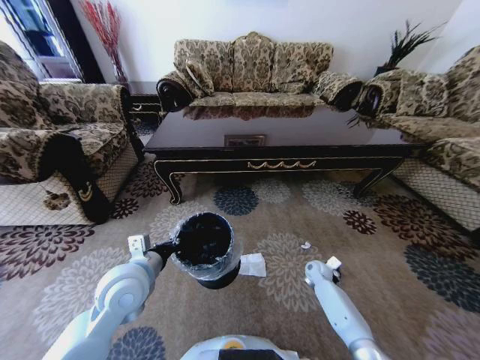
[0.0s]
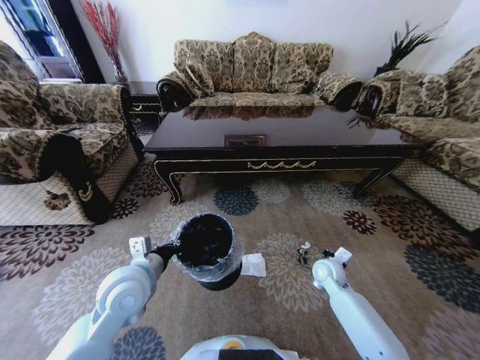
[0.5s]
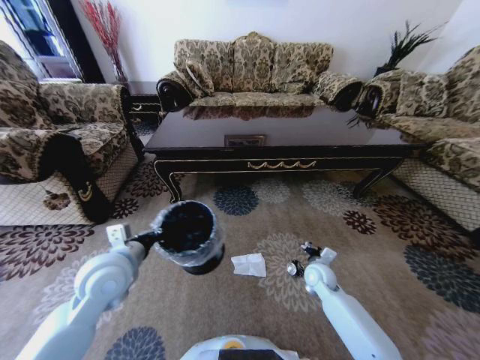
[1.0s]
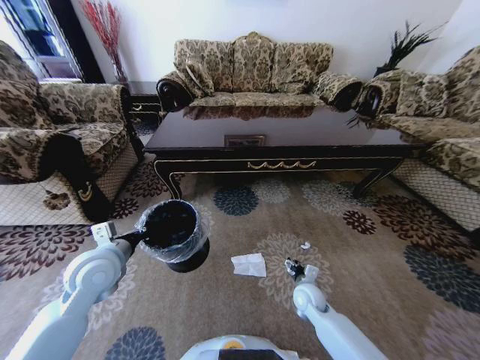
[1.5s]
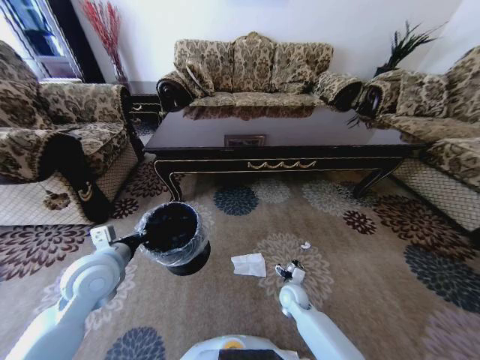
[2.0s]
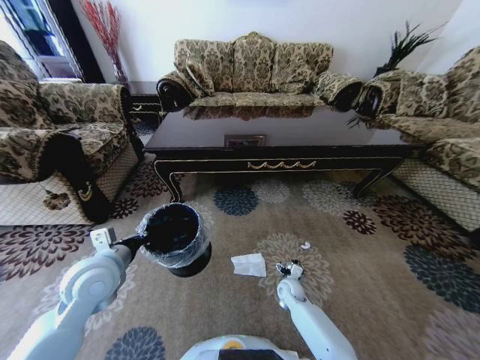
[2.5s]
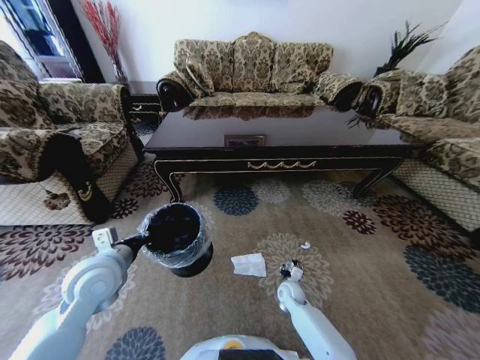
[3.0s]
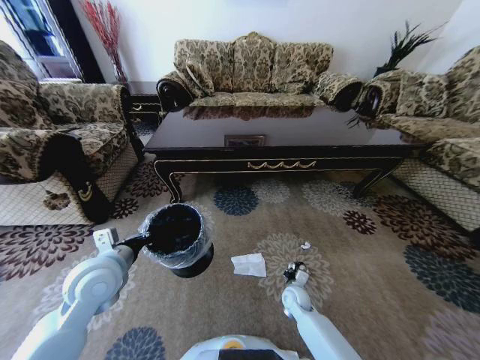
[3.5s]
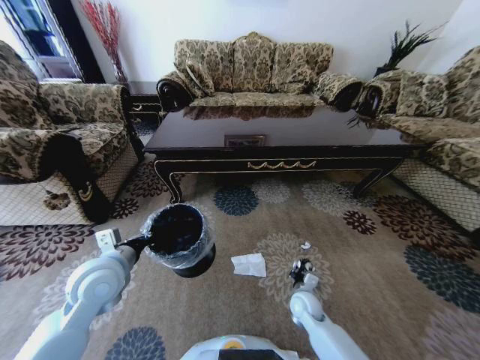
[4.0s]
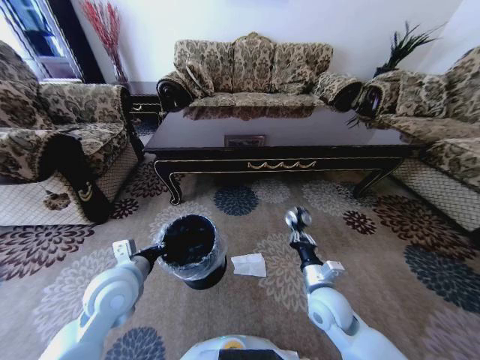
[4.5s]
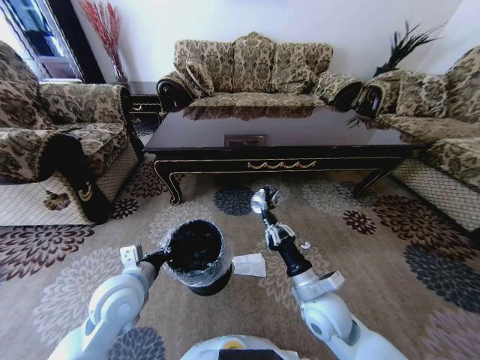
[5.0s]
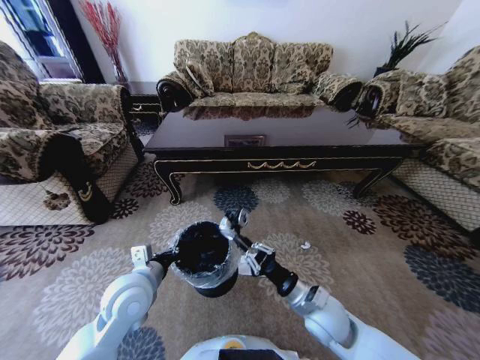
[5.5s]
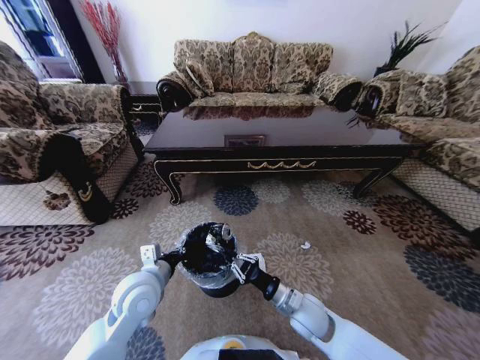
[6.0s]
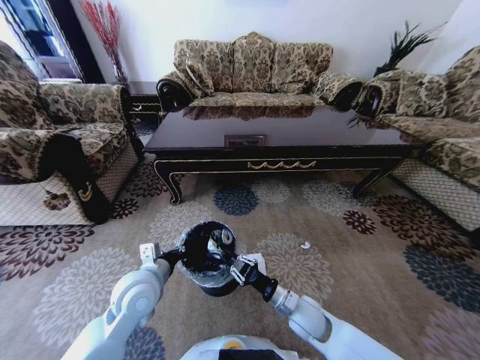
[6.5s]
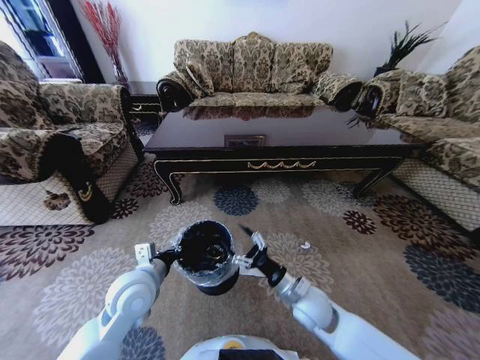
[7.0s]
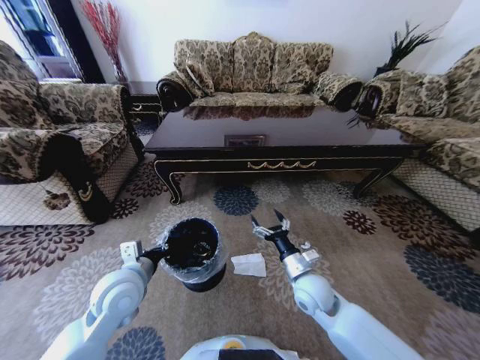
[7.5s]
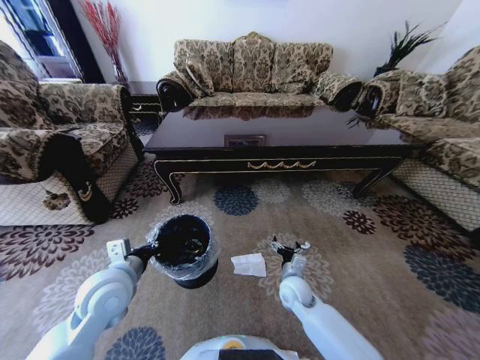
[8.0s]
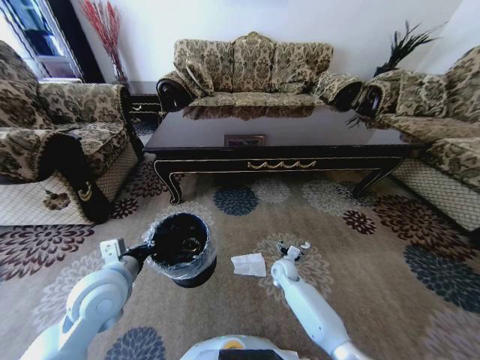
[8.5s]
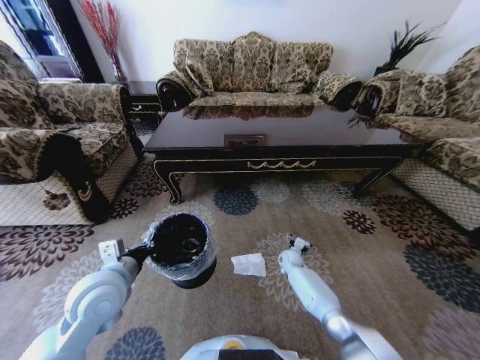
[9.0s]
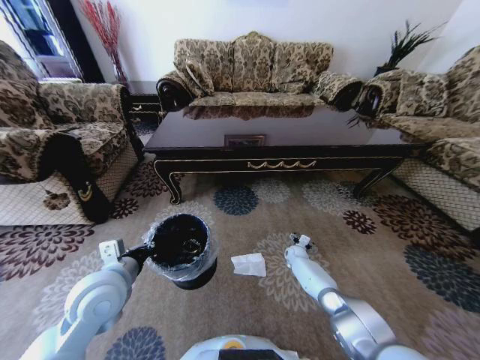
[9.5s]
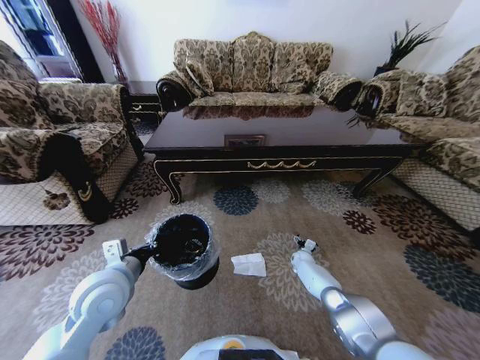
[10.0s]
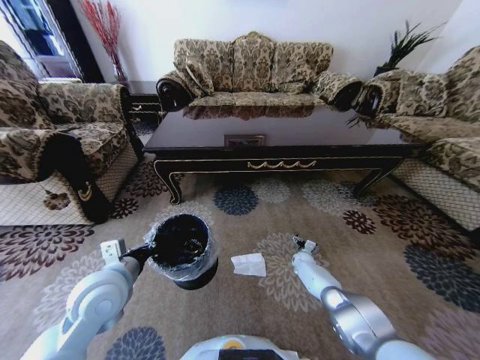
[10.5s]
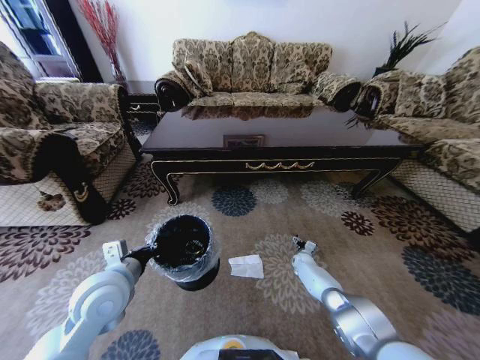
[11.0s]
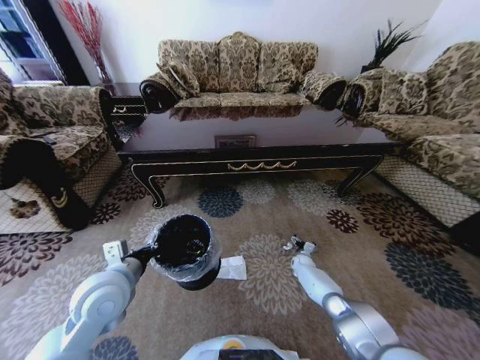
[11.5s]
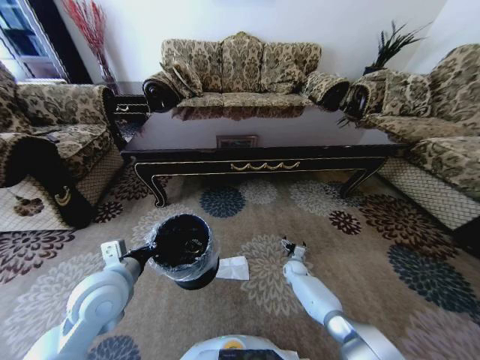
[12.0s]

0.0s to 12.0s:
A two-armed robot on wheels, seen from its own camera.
Task of the whole recording: Move to the front of the table and pick up the trash from the floor, then place it into the trash bin.
0.0s to 2.0s: The left gripper moves to the left, approximately 5 cm, while the right gripper goes roughly 15 cm to the left and backward, and opens its fingers.
2.0s to 4.0s: The right gripper closes its fingers.
4.0s to 6.0s: The right gripper goes some 15 cm upward, backward and to the left; the left gripper heads to the right, covering roughly 5 cm.
6.0s to 8.0s: The right gripper travels forward and downward by some 10 cm, and opens up. Meanwhile the left gripper shifts approximately 5 cm to the left.
8.0s to 10.0s: The right gripper goes approximately 25 cm forward, downward and to the right.
10.0s to 12.0s: The right gripper goes some 5 cm to the left.

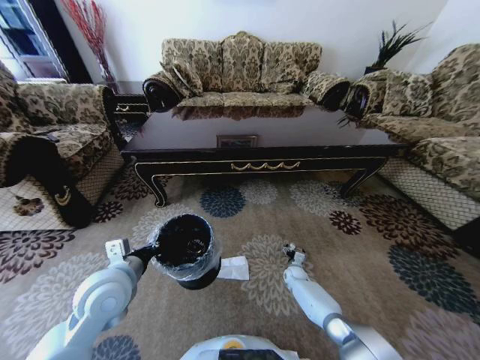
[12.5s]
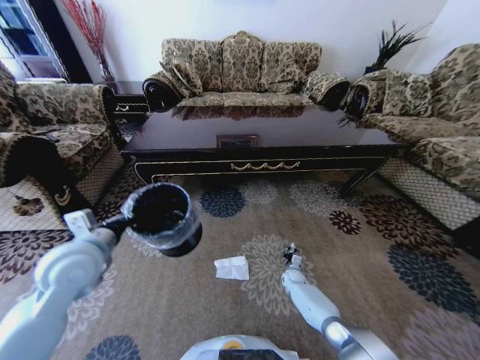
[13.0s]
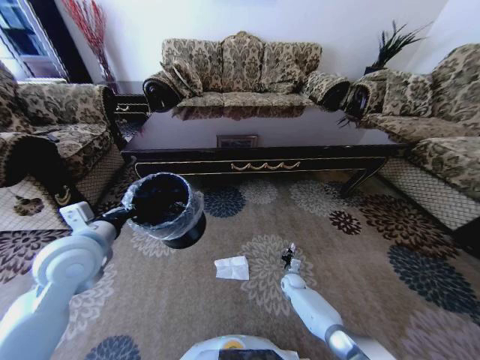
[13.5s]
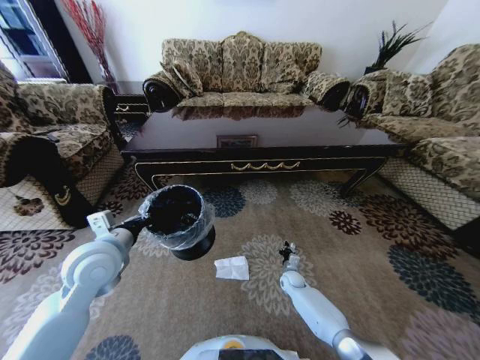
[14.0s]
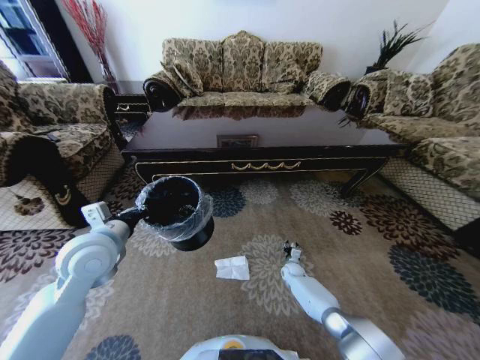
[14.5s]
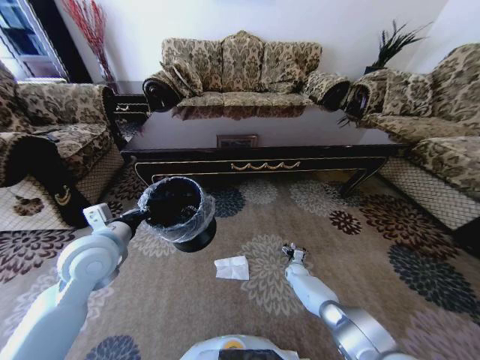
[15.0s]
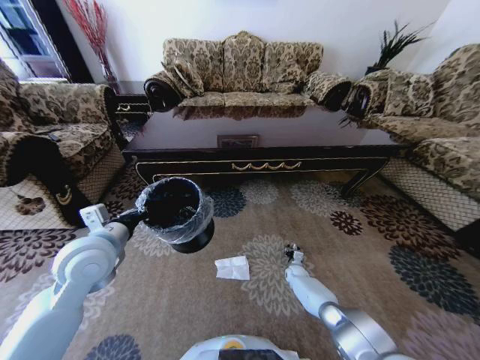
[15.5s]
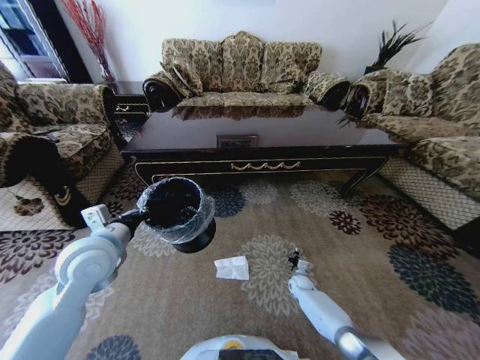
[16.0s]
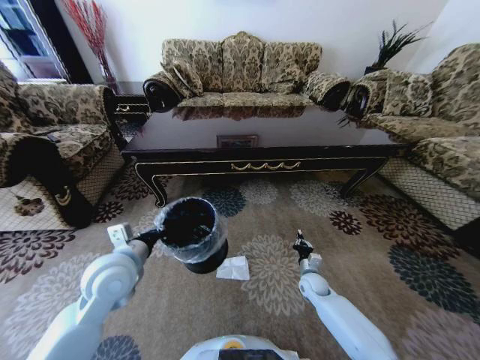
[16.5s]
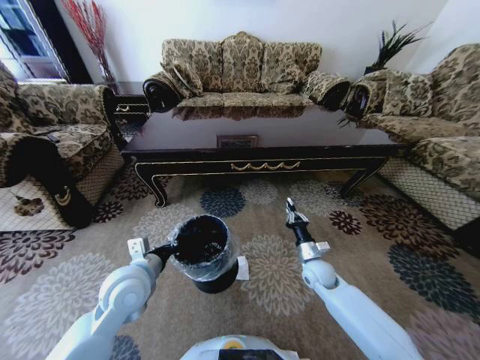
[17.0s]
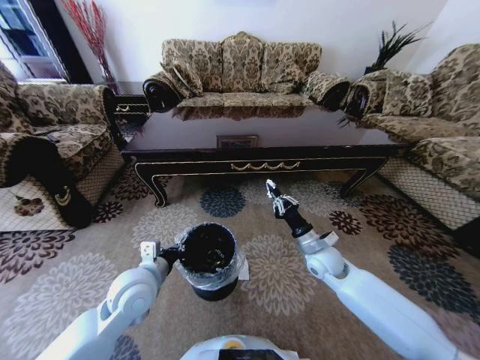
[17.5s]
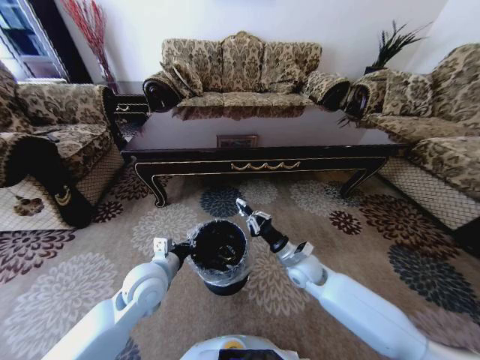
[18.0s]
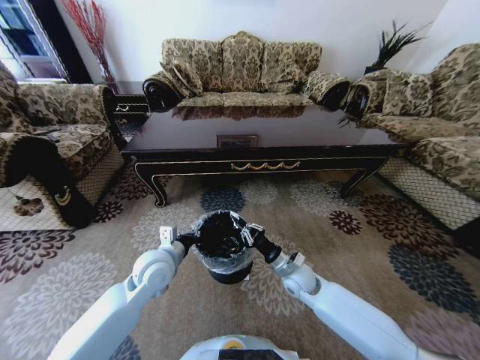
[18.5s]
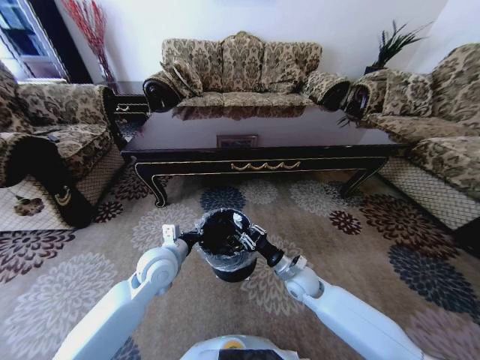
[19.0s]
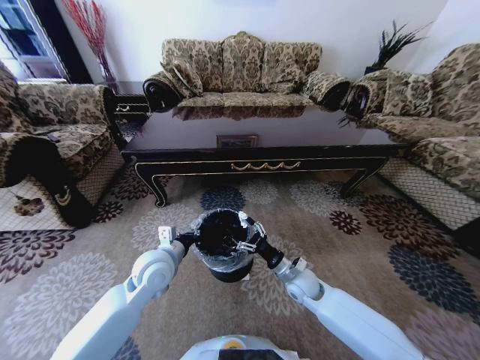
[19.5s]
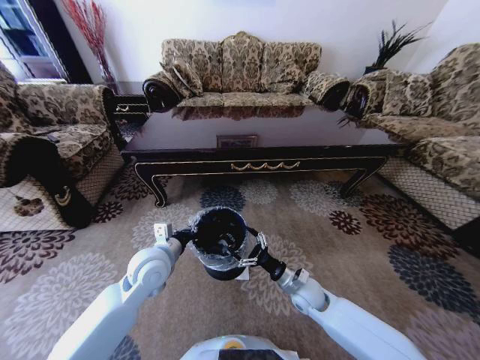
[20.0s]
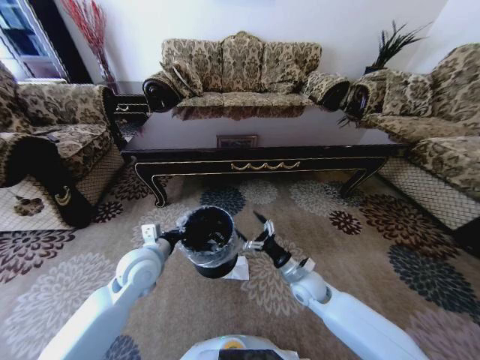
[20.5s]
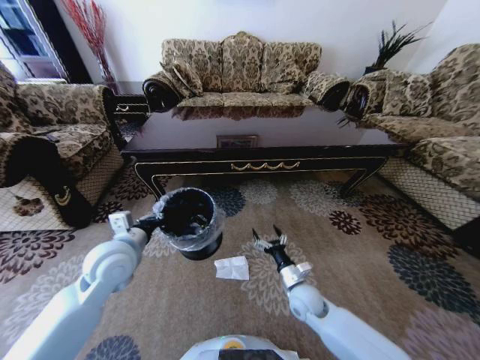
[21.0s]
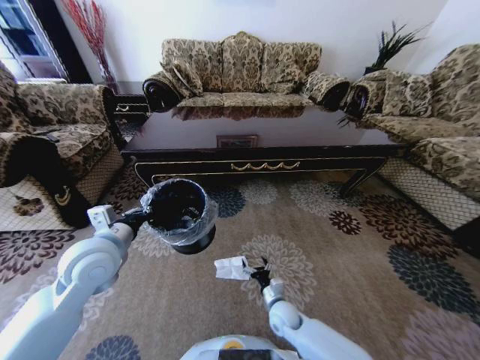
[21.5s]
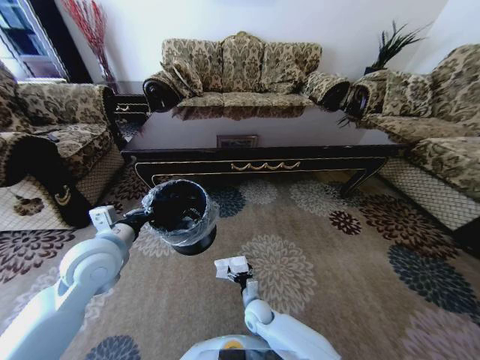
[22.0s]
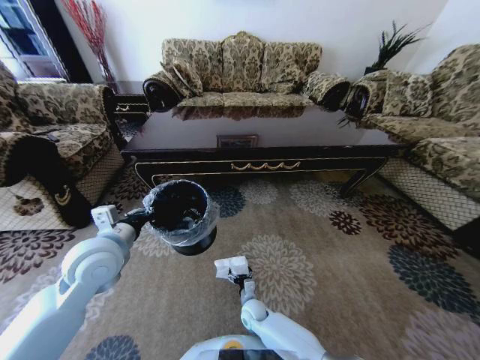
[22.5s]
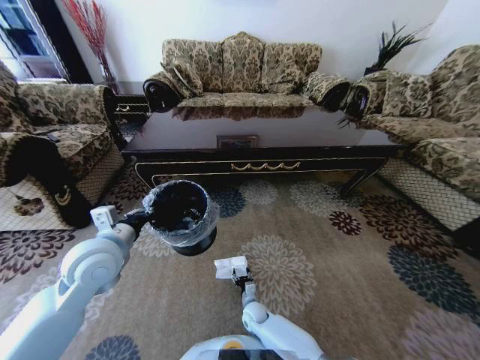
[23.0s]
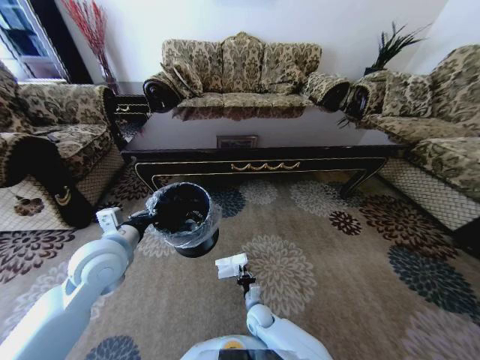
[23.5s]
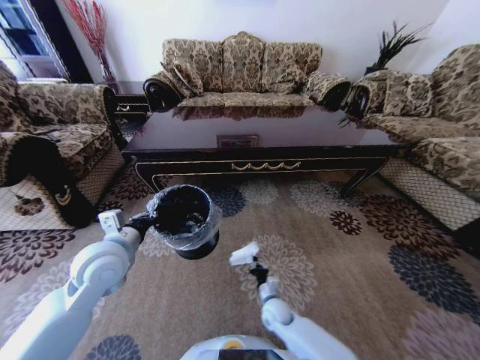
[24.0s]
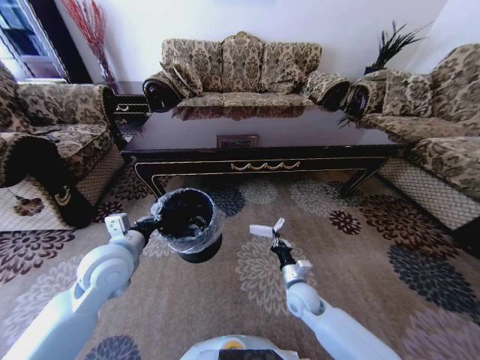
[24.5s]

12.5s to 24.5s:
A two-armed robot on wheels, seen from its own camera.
Task of the whole recording: Move to the front of the table and pick up the trash from the floor, then place it into the trash bin.
12.5s to 14.5s: The left gripper travels upward and forward by some 10 cm. The right gripper closes its fingers.
14.5s to 16.5s: The left gripper moves approximately 5 cm. The right gripper travels upward and backward by roughly 10 cm, and closes.
16.5s to 18.5s: The left gripper moves to the right, about 5 cm. The right gripper travels upward and to the left by some 15 cm.
18.5s to 20.5s: The right gripper opens its fingers.
20.5s to 22.5s: The right gripper travels downward and to the left by roughly 25 cm, while the left gripper travels upward and to the left by roughly 10 cm.
22.5s to 24.5s: The right gripper travels upward and to the right by approximately 20 cm, and closes up.

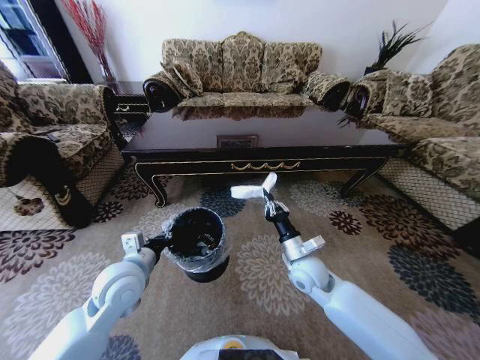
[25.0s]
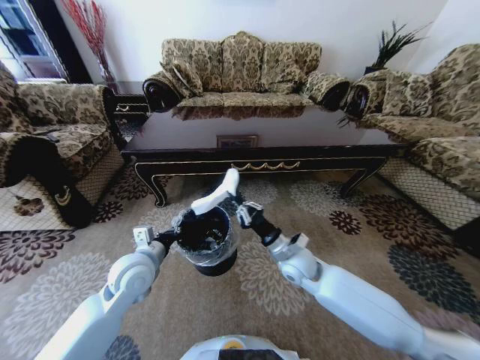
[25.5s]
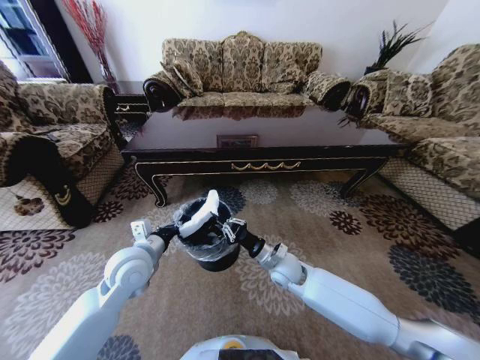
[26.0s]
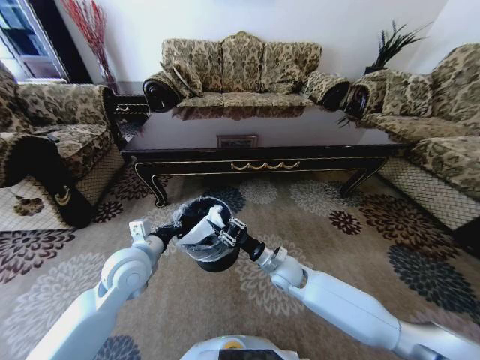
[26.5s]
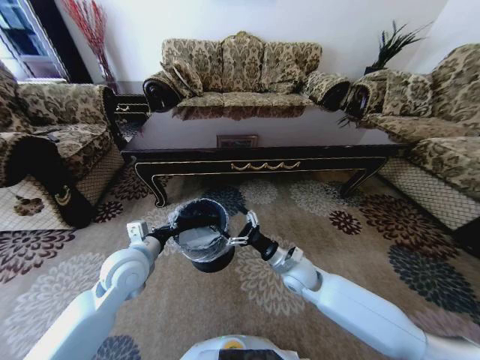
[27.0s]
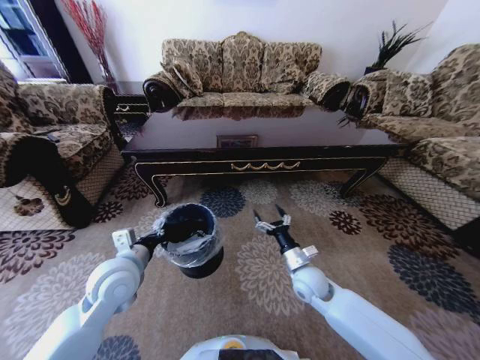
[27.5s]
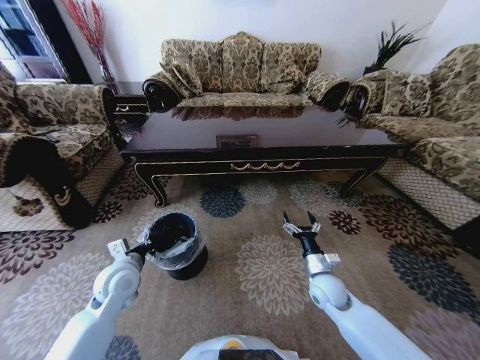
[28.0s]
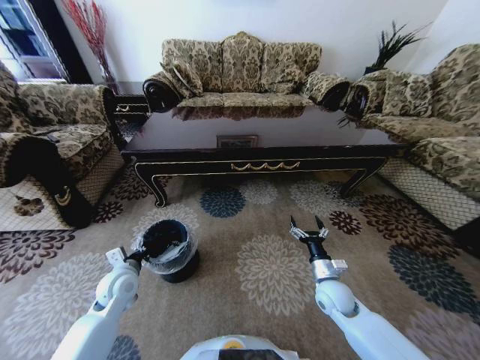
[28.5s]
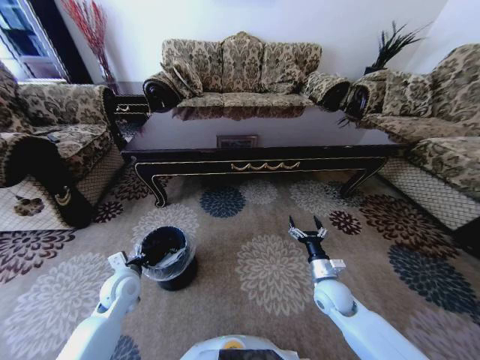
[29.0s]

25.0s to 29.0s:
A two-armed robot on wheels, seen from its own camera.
Task of the whole recording: Move to the front of the table and pick up the trash from the floor, then place it into the trash bin.
25.0s to 27.0s: The right gripper opens.
27.0s to 29.0s: The left gripper heads downward and to the left, covering about 15 cm. Meanwhile the right gripper heads to the right and downward, covering approximately 10 cm.
